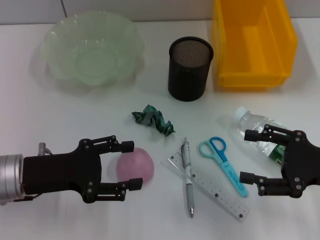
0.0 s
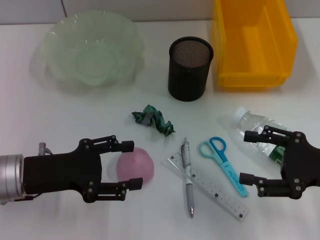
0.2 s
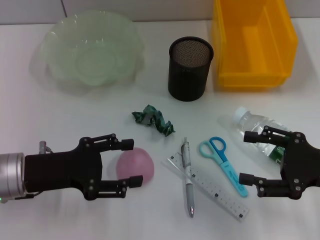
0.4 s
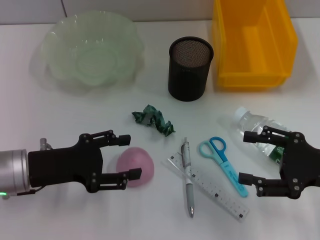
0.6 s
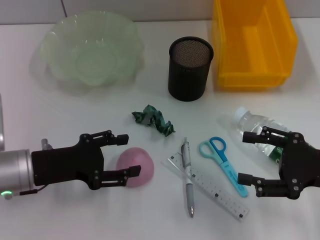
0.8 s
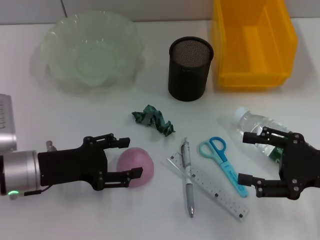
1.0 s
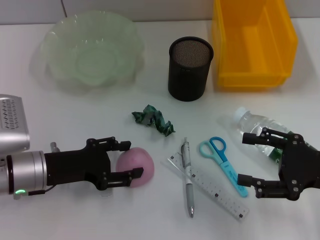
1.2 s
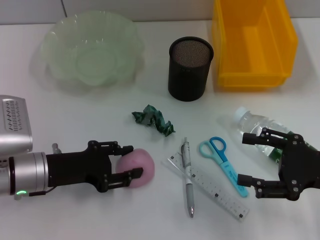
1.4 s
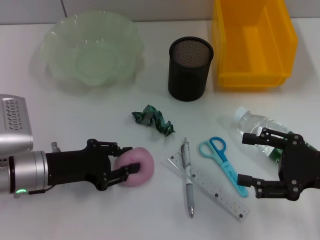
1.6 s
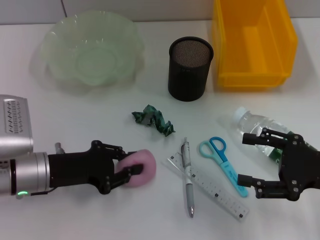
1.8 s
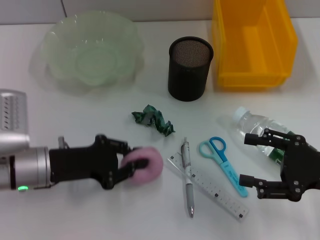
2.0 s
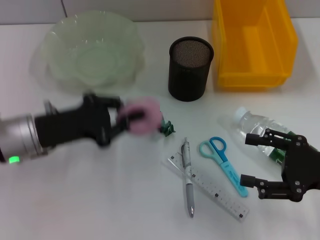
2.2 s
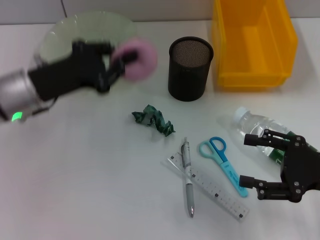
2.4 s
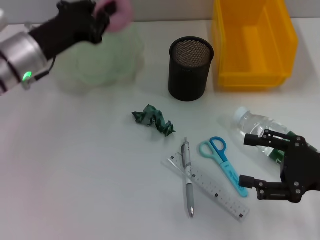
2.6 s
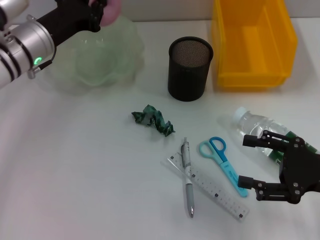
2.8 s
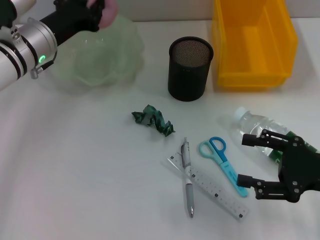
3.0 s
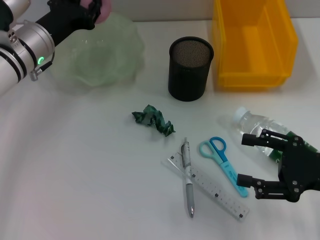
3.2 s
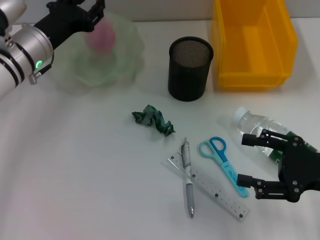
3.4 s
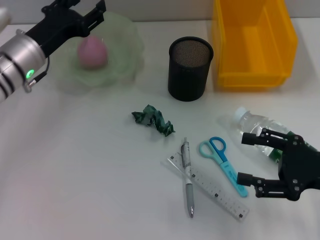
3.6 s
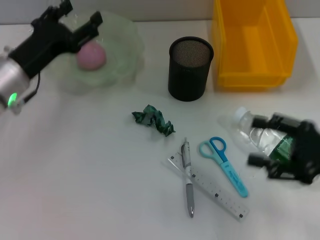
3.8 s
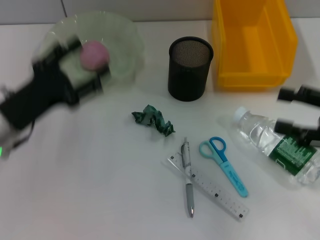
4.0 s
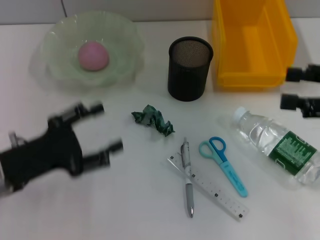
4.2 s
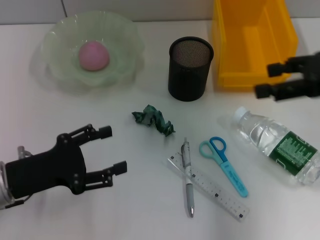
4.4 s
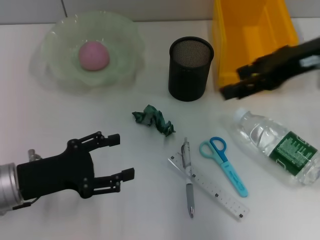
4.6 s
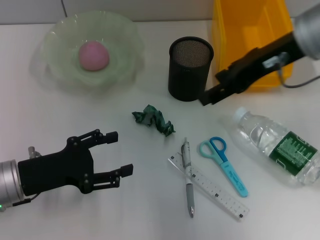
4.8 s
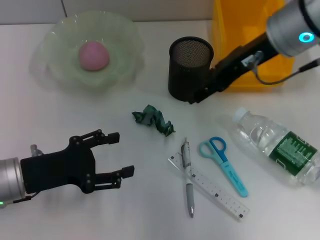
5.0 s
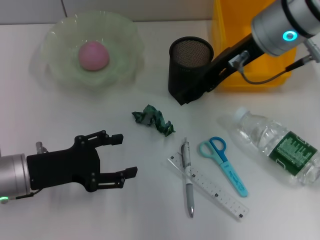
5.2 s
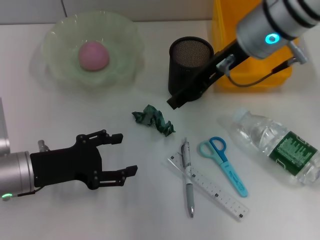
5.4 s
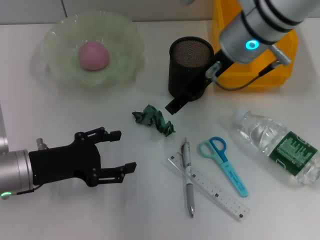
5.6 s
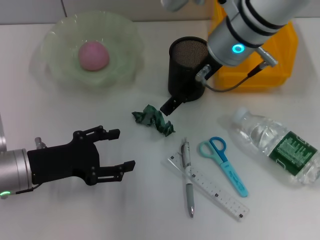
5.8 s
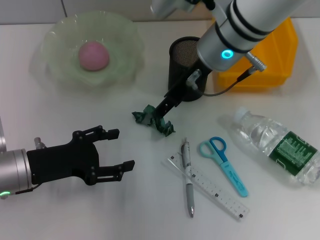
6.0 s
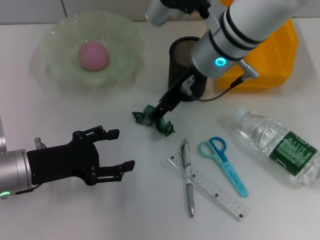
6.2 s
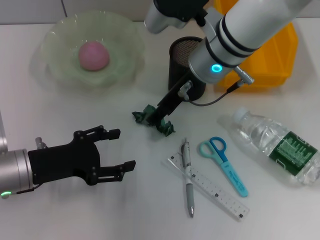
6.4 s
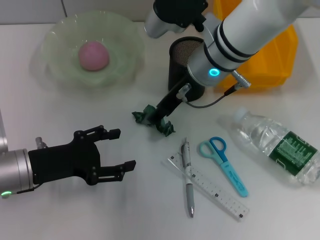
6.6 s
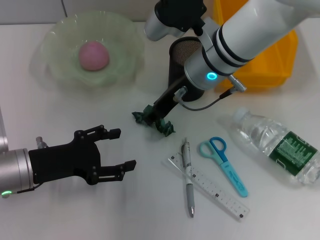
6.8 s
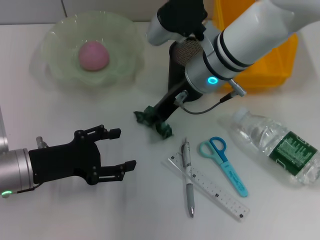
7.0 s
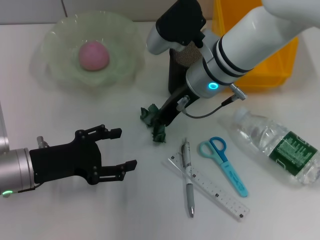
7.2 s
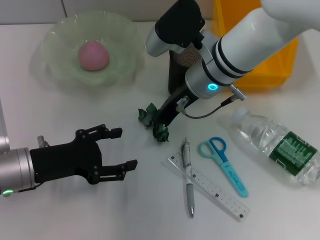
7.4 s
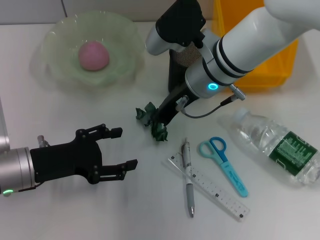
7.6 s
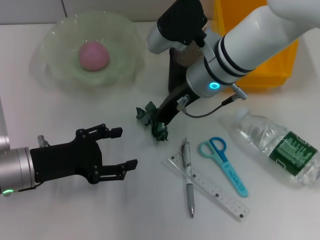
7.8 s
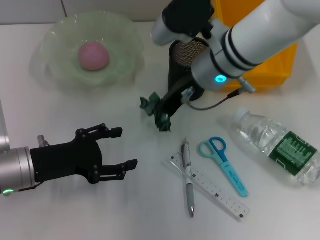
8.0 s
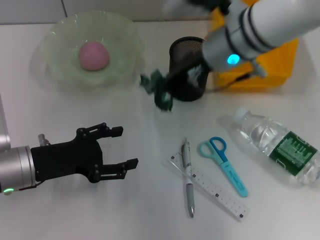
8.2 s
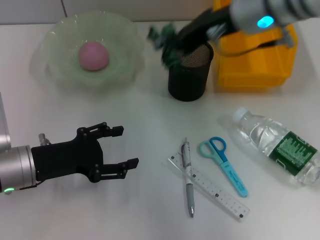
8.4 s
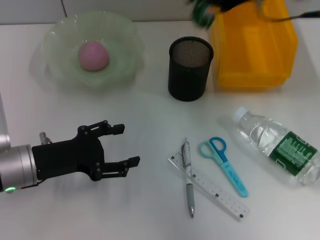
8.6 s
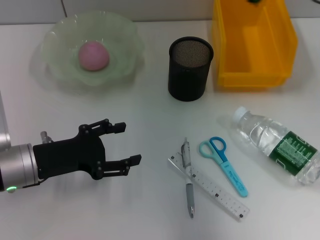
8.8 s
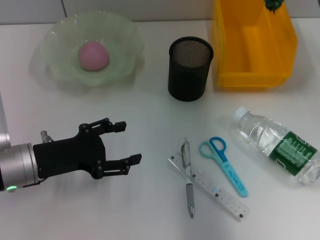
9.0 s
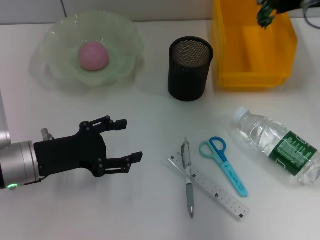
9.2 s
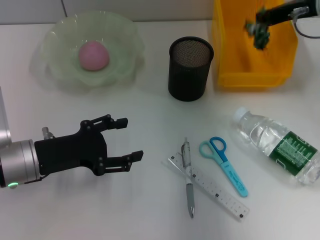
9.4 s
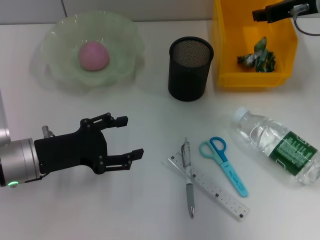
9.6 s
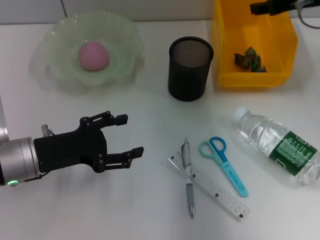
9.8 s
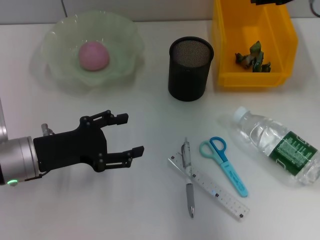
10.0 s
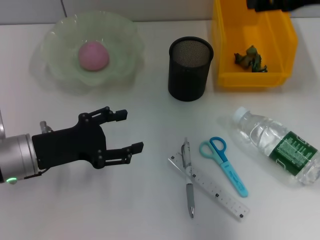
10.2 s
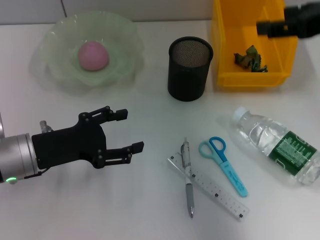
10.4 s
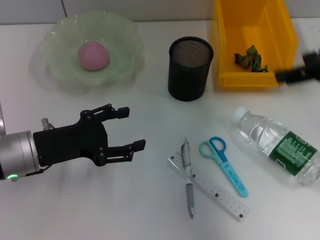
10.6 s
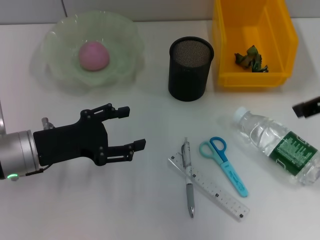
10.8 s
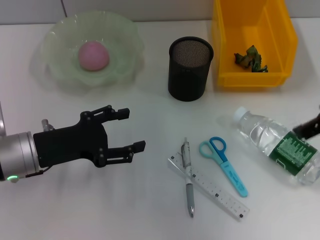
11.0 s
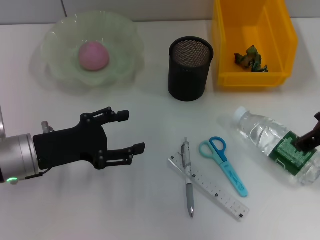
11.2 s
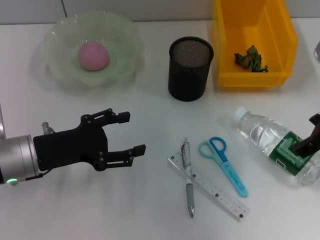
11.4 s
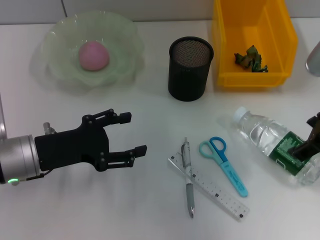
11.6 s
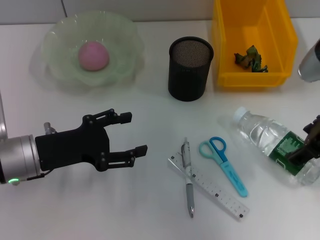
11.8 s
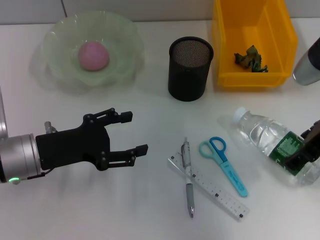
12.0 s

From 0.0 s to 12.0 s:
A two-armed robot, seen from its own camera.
Step, from 0.0 s to 1.4 s: Grab the peach with the left hand.
Step, from 1.6 s to 3.6 s: Place the peach into the fruit bowl with the left hand.
Step, from 3.8 s to 7.4 s: Grab the plastic with the right hand.
Step, from 7.6 s to 9.8 s: Place the plastic into the trash can with the right hand.
From 0.0 s to 1.6 s: The left gripper closes up.
From 1.6 s to 3.0 s: The left gripper moves forward and upward, approximately 15 cm, and closes up.
From 3.0 s to 4.4 s: The right gripper goes roughly 20 cm upward and forward. The left gripper goes about 20 cm backward, and opens up.
From 4.4 s to 6.0 s: The right gripper goes some 20 cm to the left.
From 6.0 s to 7.6 s: The right gripper moves downward, roughly 5 cm, and closes up.
From 7.6 s to 9.0 s: The right gripper is displaced to the right and upward by approximately 20 cm.
From 9.0 s to 10.4 s: The right gripper goes roughly 10 cm backward, and opens its fingers.
From 10.4 s to 12.0 s: The right gripper travels downward by roughly 10 cm.

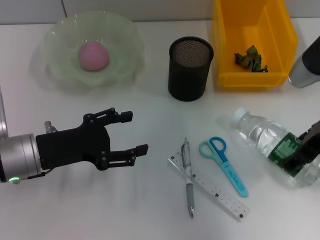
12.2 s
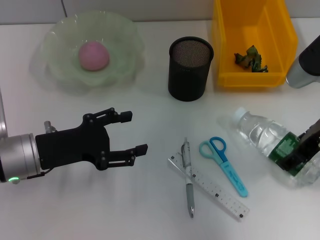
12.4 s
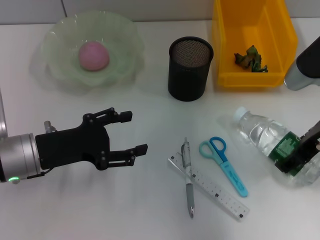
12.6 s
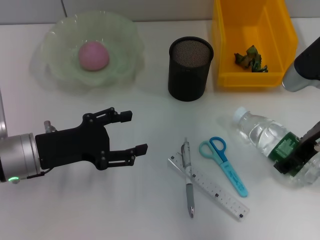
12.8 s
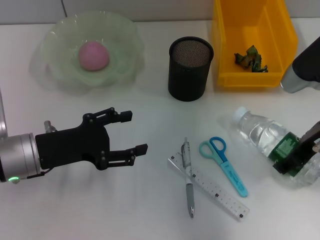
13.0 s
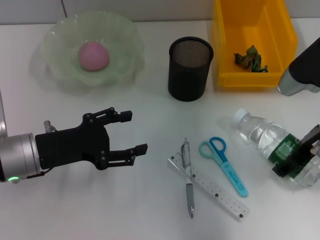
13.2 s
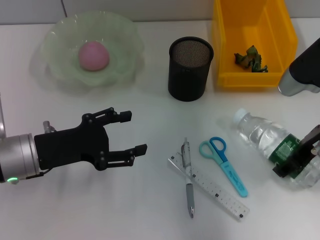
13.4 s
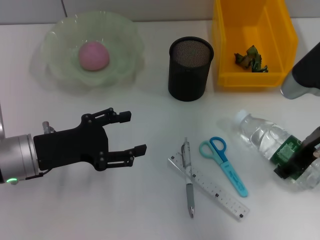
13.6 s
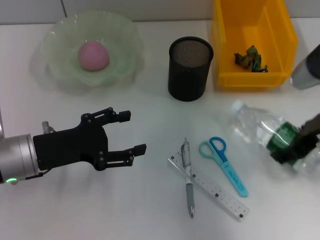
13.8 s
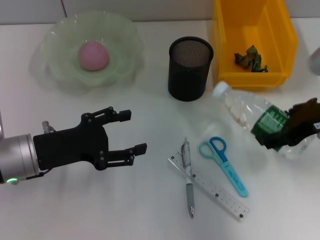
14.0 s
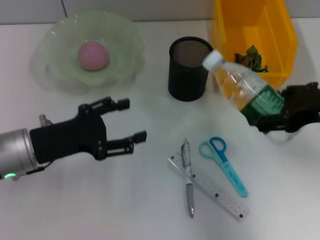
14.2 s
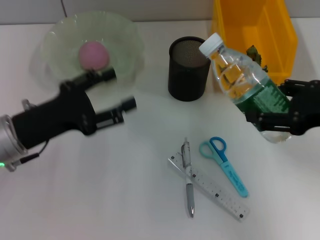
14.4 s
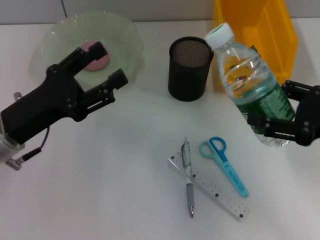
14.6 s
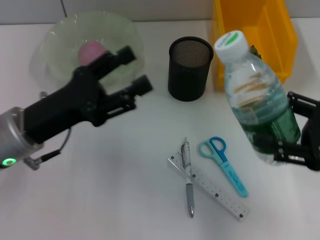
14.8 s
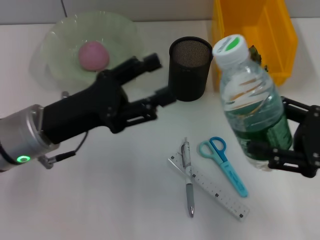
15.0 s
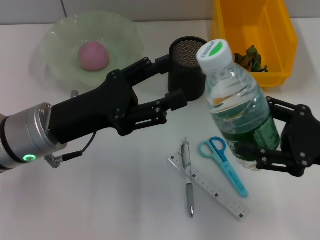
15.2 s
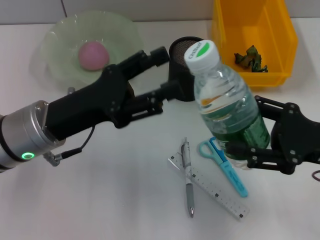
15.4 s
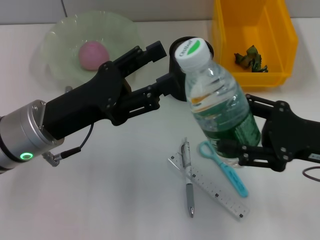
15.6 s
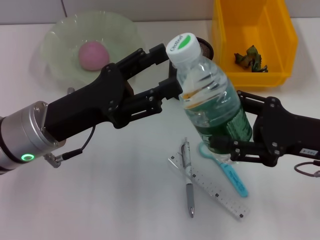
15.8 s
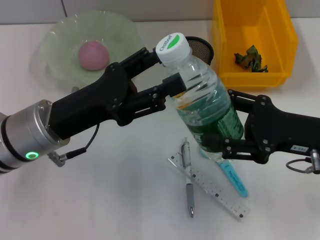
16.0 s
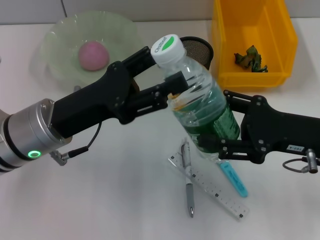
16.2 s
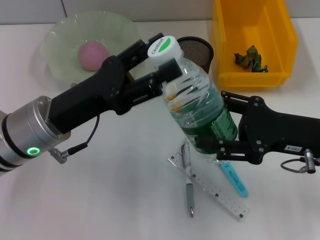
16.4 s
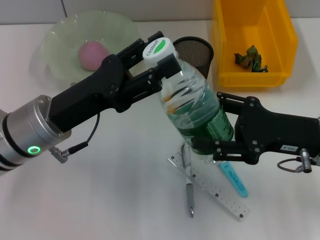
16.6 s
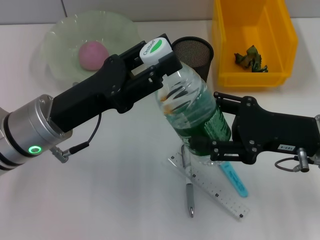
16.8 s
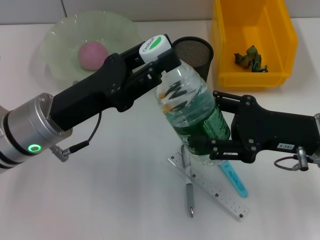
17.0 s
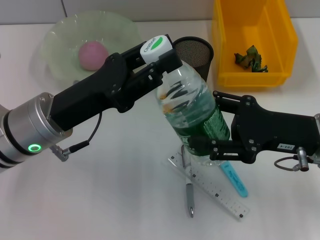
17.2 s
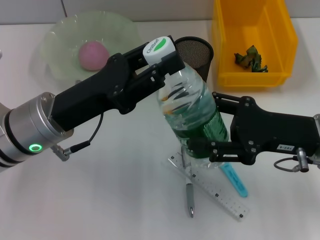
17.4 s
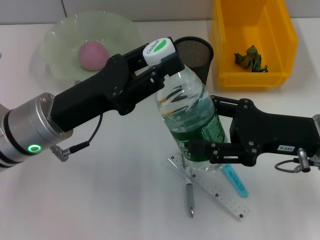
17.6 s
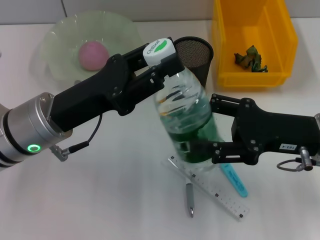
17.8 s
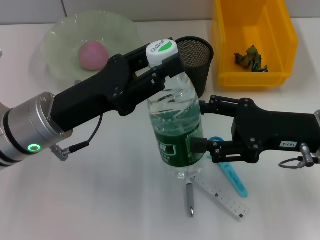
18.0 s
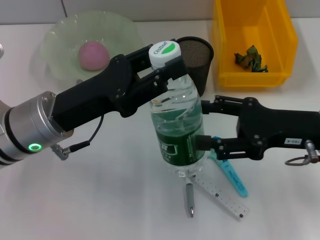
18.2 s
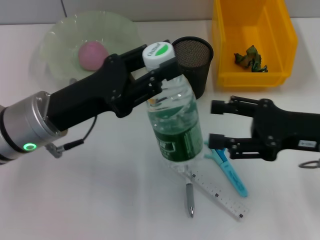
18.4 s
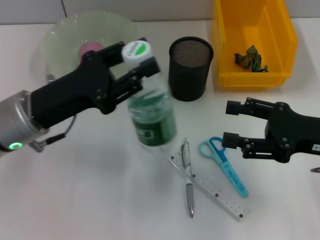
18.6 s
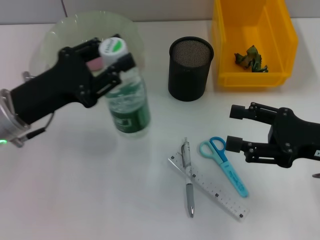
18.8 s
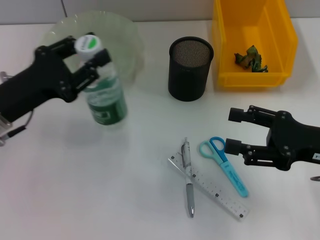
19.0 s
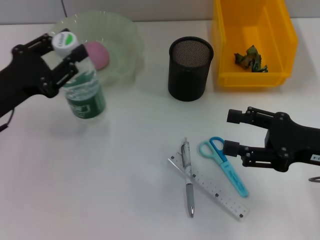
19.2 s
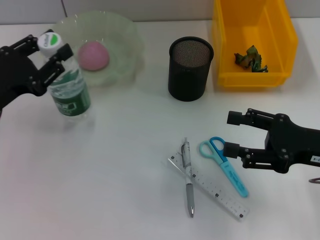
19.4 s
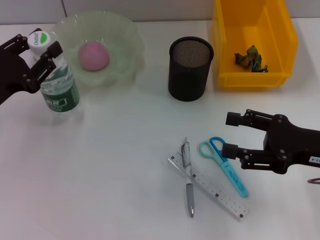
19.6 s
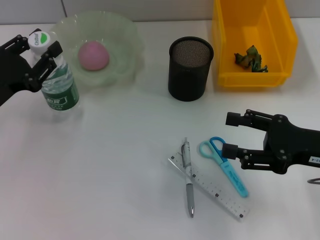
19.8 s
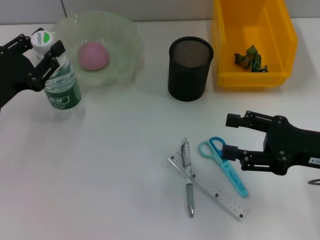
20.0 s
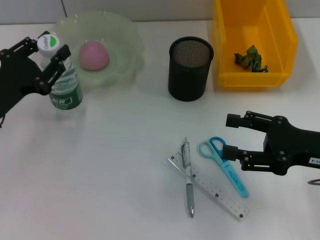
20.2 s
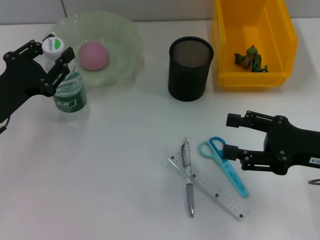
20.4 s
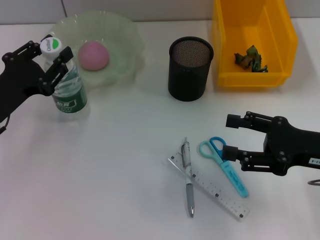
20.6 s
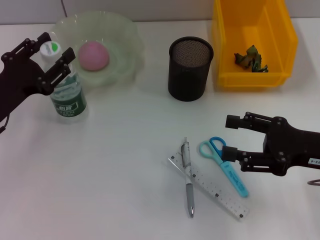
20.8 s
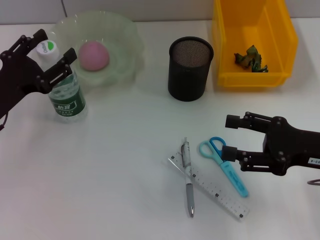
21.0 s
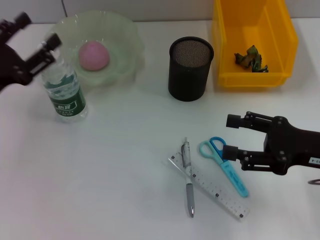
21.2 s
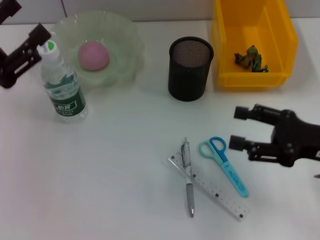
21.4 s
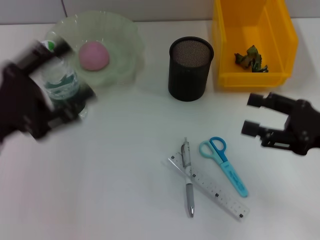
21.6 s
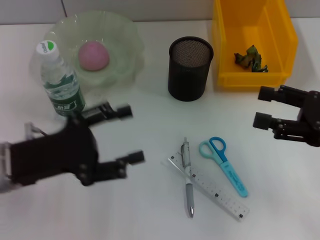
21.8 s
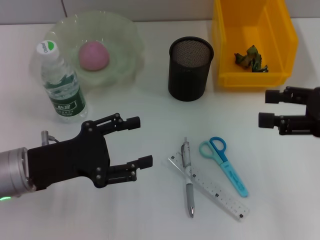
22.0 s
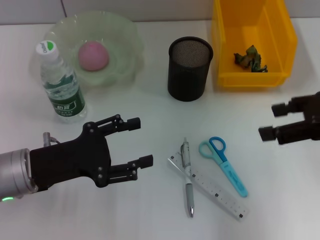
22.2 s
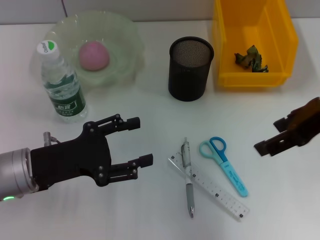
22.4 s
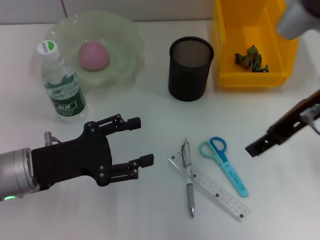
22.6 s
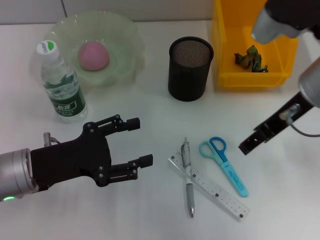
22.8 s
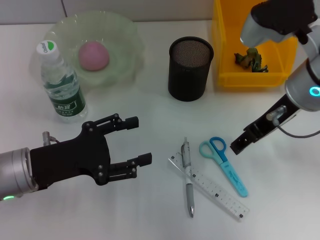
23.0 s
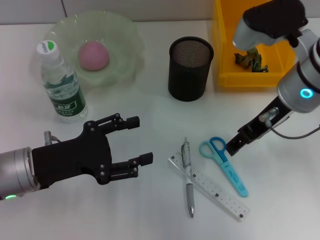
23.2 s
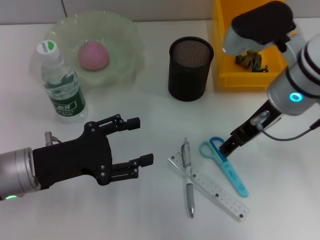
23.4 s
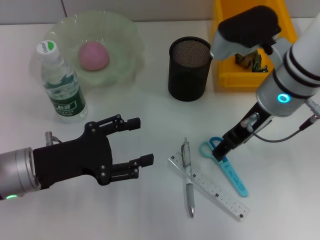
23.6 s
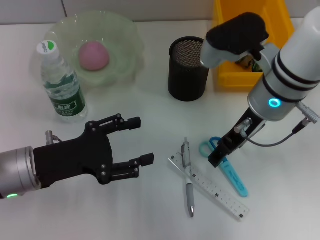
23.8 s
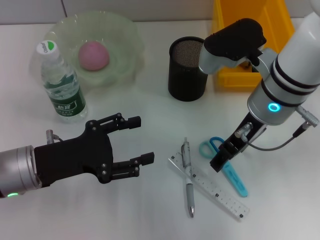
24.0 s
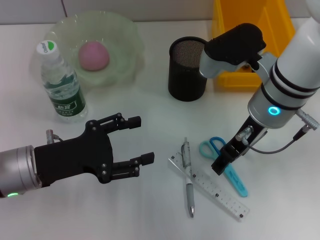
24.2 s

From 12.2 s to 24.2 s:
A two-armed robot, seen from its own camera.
Step, from 13.4 s to 18.0 s: Pass the water bottle from the right hand to the left hand.
Step, from 18.2 s to 21.0 s: Place the water bottle on the table with the left hand.
From 12.2 s to 13.8 s: The grippers stay close to where they were, moving slightly.
From 13.8 s to 15.2 s: The right gripper goes roughly 10 cm backward and downward; the left gripper changes place by approximately 5 cm.
From 15.2 s to 16.6 s: The right gripper ends up some 5 cm from where it was.
From 16.6 s to 18.2 s: The left gripper closes up.
From 18.2 s to 19.8 s: The left gripper heads to the left, covering about 10 cm.
From 19.8 s to 21.2 s: The left gripper opens up.
From 21.2 s to 22.6 s: The left gripper moves to the right, roughly 5 cm. The right gripper shifts some 15 cm upward, to the left and forward.
From 22.6 s to 24.2 s: The right gripper shifts roughly 10 cm downward and to the left.
